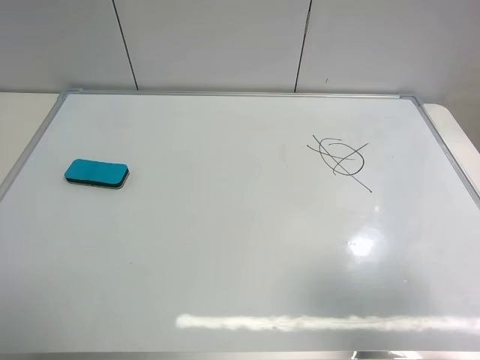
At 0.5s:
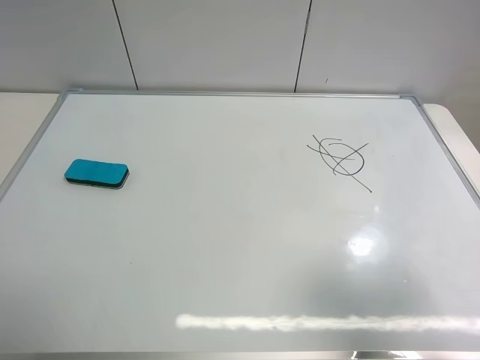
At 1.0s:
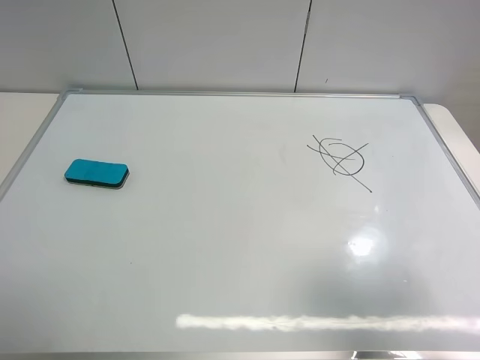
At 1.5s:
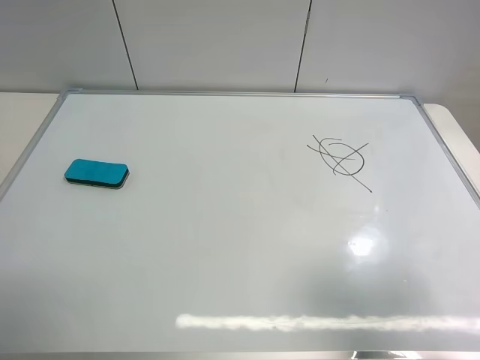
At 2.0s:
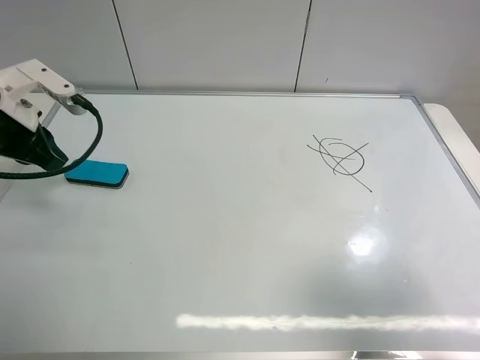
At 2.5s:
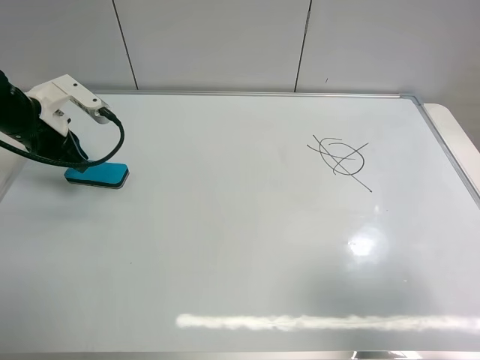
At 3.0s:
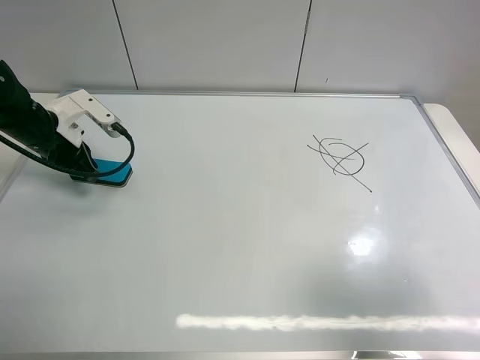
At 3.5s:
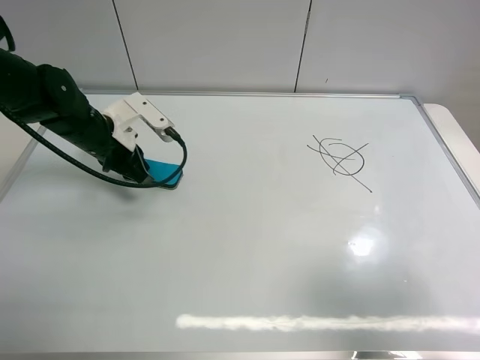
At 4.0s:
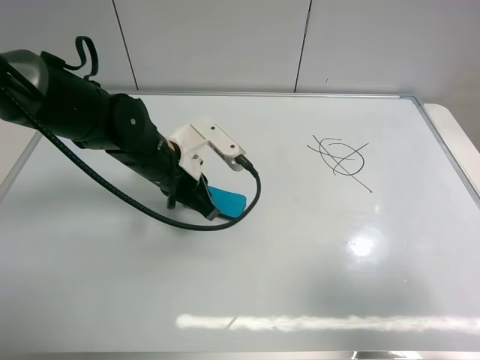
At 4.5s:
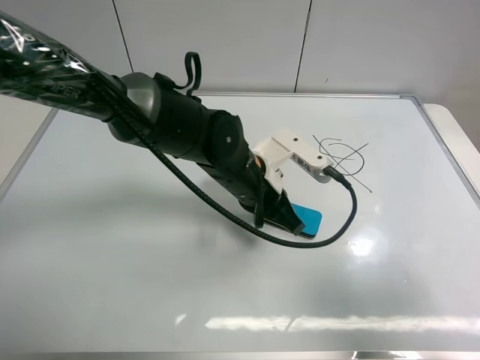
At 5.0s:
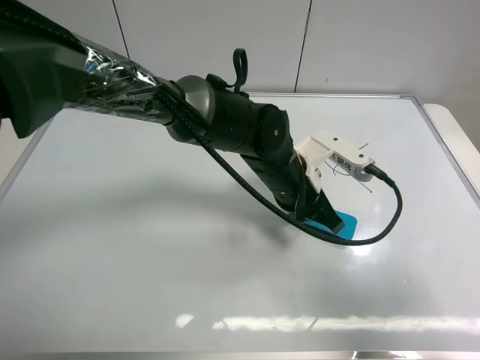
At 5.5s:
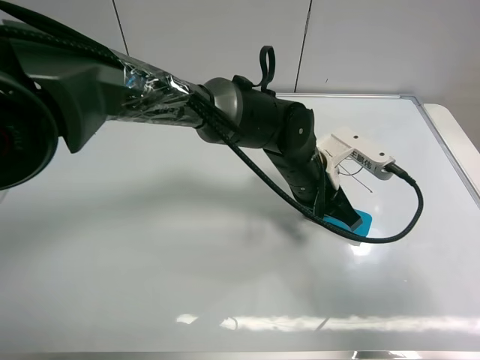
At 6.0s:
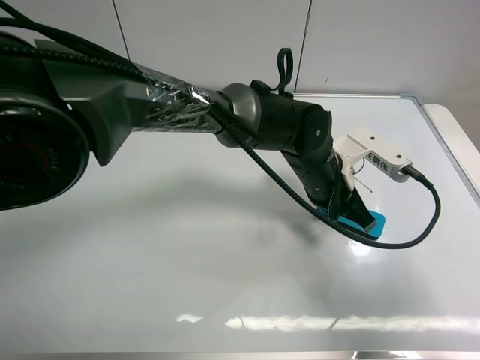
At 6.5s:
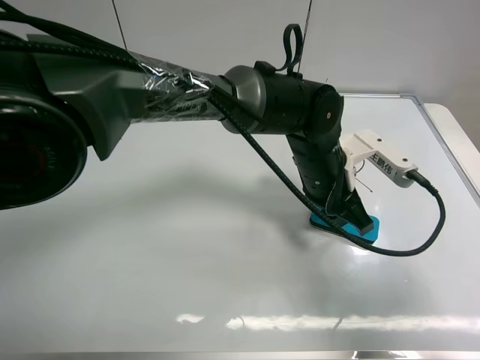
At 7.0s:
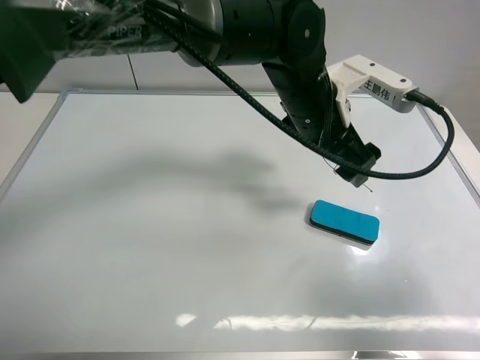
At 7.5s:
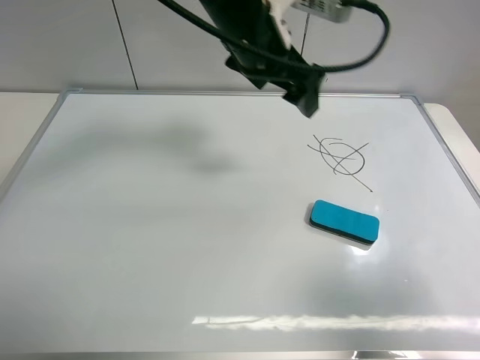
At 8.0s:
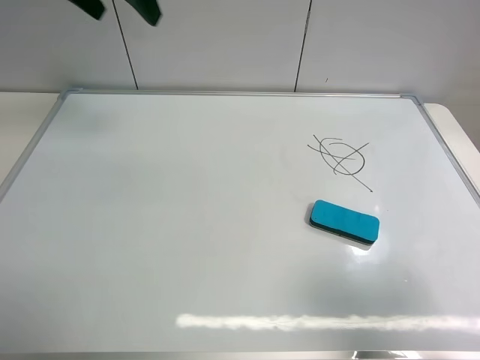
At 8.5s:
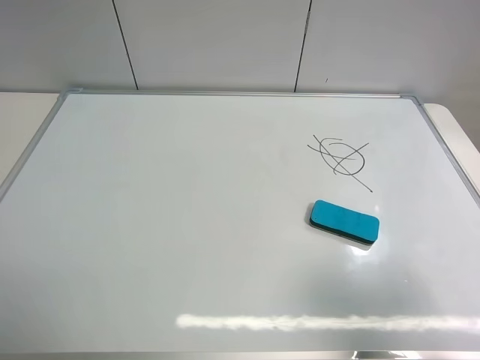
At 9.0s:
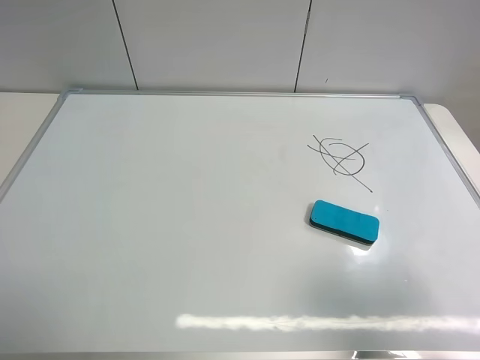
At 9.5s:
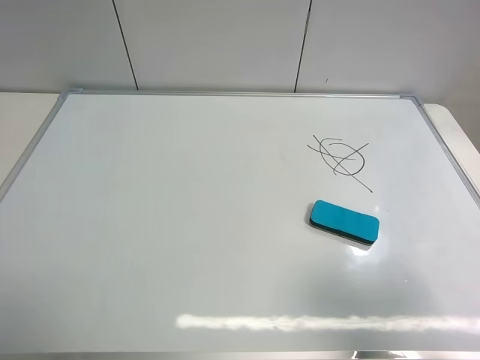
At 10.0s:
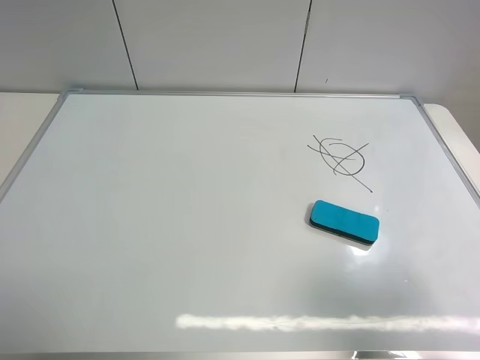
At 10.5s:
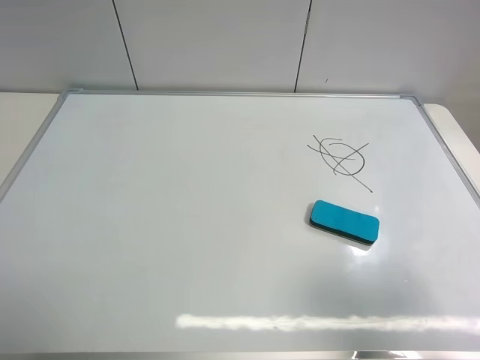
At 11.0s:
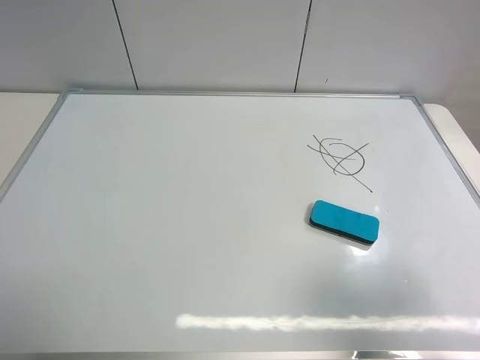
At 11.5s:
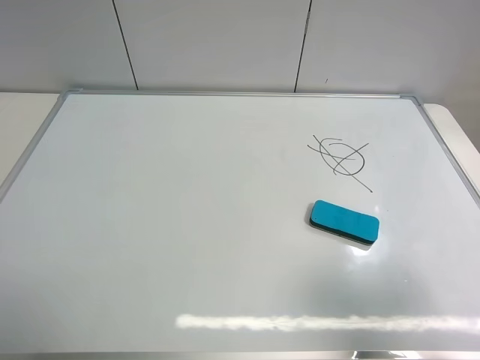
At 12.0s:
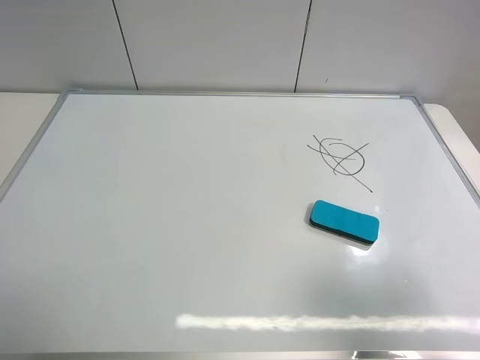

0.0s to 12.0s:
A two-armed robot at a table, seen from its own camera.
Task of the whole recording: use the left gripper to place the eraser in the right, use the right gripper to pick up the eraser, wipe the notes on the whiteboard clean, and then put it down.
Step, 0.0s to 6.5s: Move the board eraser to the right of the whiteboard with left gripper.
0.0s to 2.0s: The left gripper is displaced forward by roughly 30 cm, and closes.
2.0s to 4.0s: The left gripper shifts about 20 cm to the right and downward.
4.0s to 6.0s: The left gripper heads to the right, covering about 20 cm.
6.0s to 8.0s: The left gripper goes approximately 40 cm to the left and upward, and opens.
8.0s to 10.0s: The left gripper moves backward, some 40 cm.
10.0s to 12.0s: The two grippers keep their place.

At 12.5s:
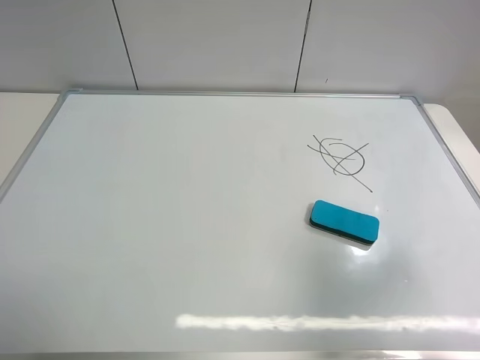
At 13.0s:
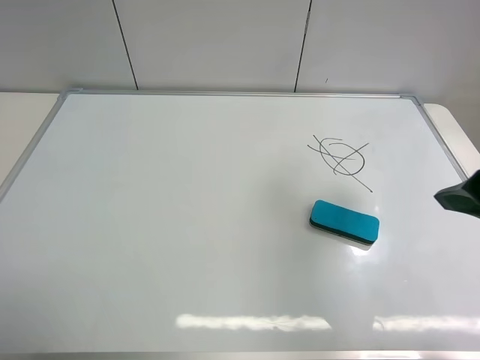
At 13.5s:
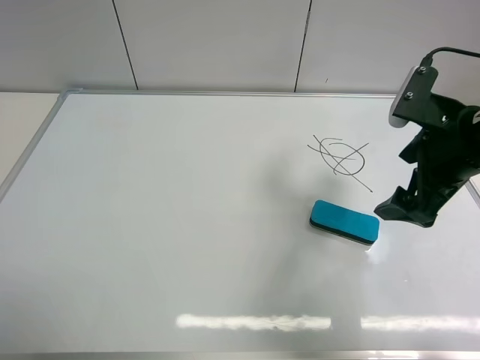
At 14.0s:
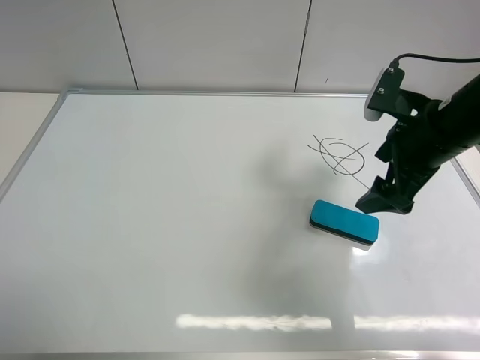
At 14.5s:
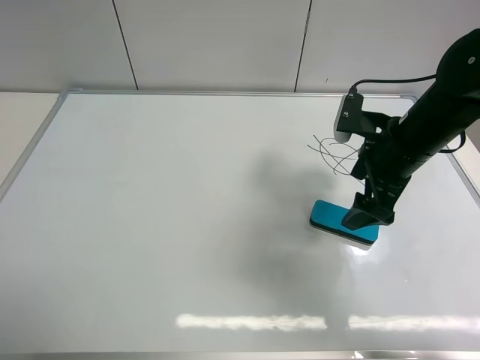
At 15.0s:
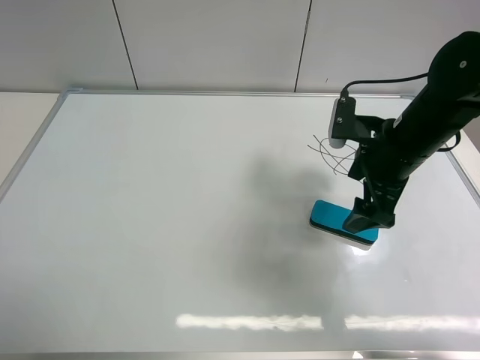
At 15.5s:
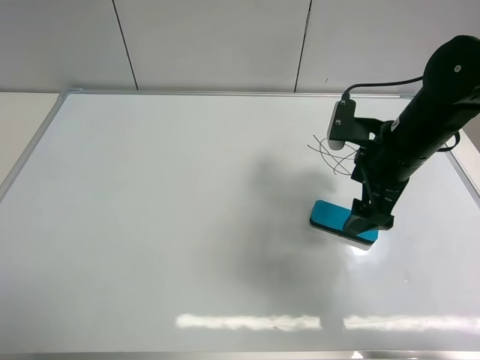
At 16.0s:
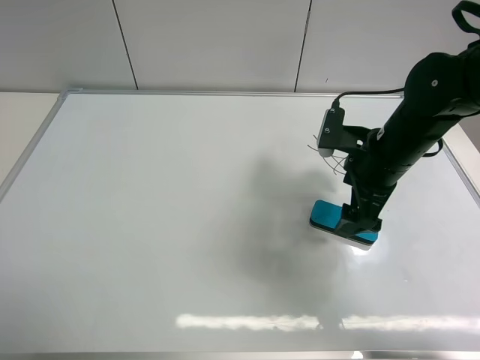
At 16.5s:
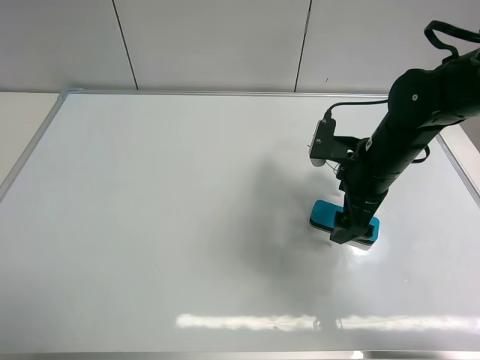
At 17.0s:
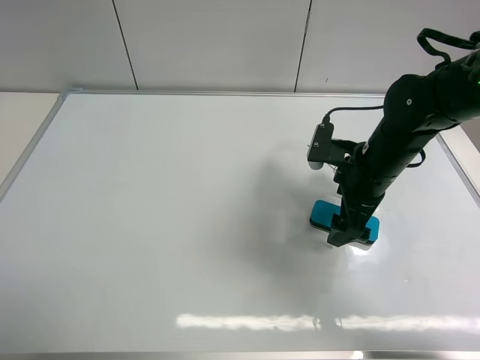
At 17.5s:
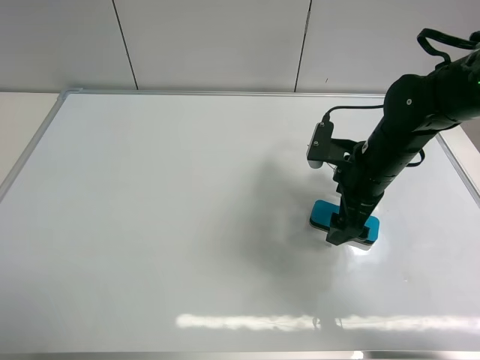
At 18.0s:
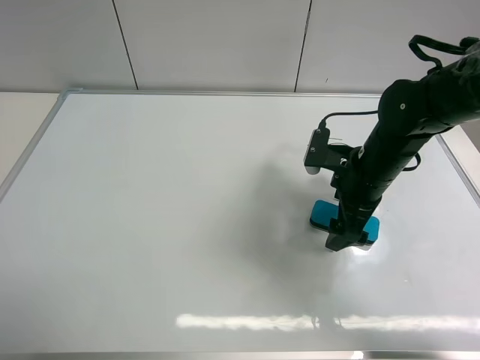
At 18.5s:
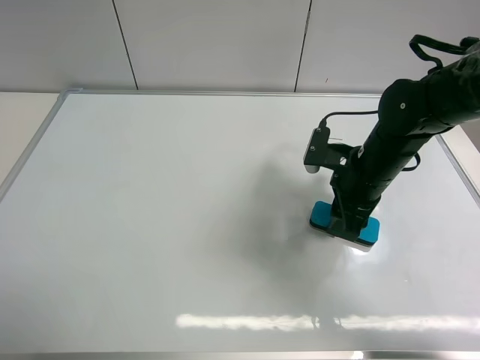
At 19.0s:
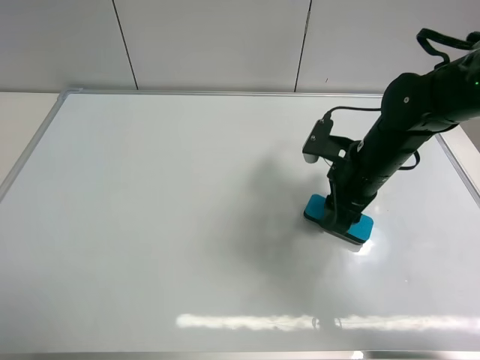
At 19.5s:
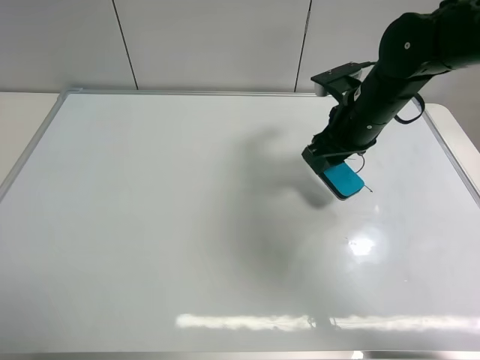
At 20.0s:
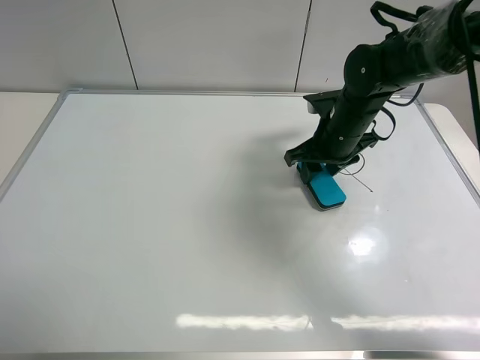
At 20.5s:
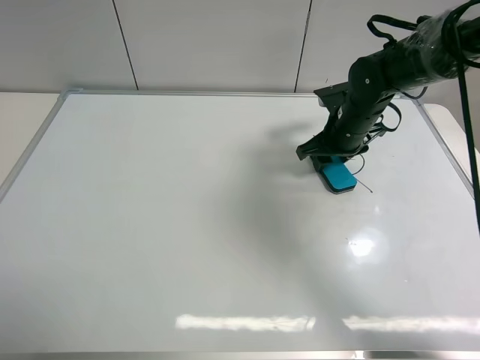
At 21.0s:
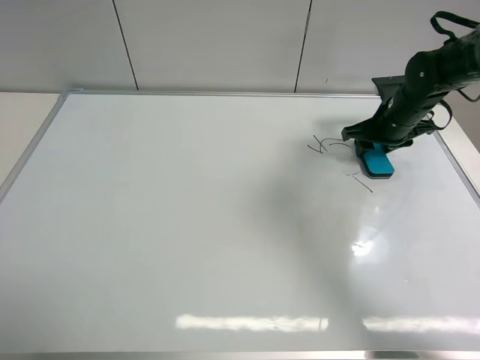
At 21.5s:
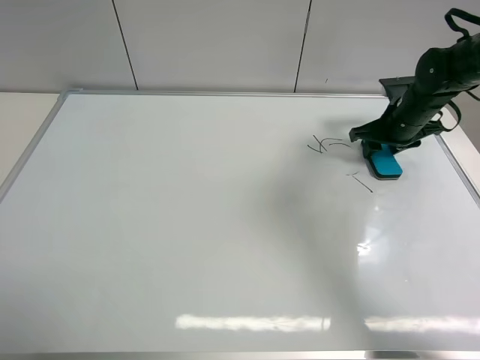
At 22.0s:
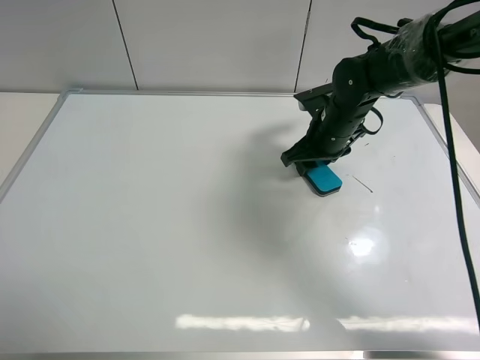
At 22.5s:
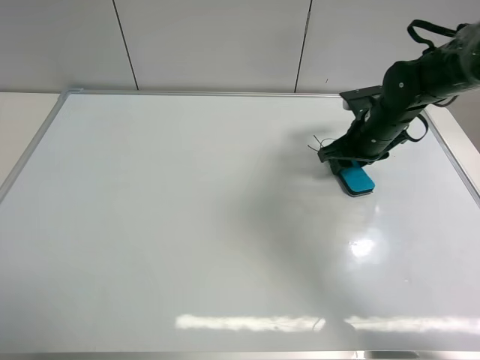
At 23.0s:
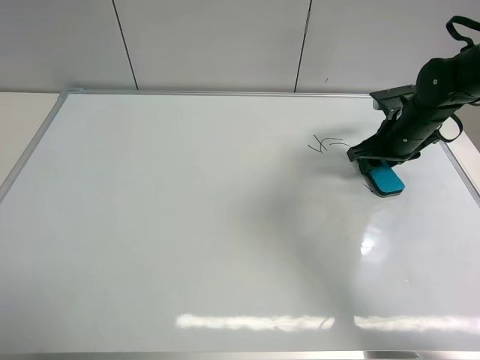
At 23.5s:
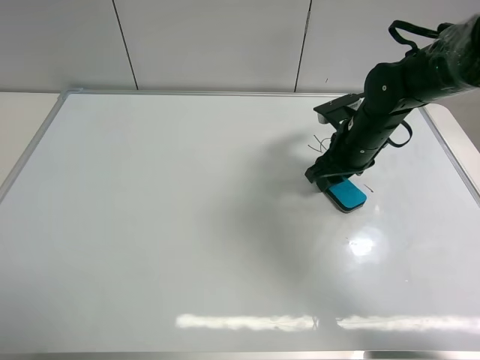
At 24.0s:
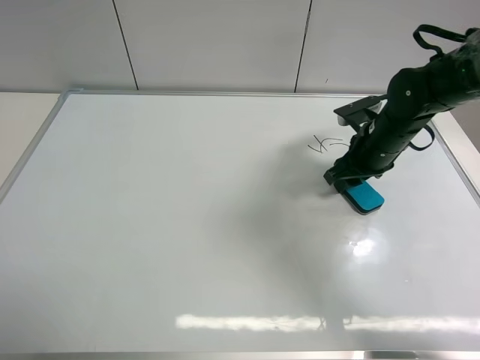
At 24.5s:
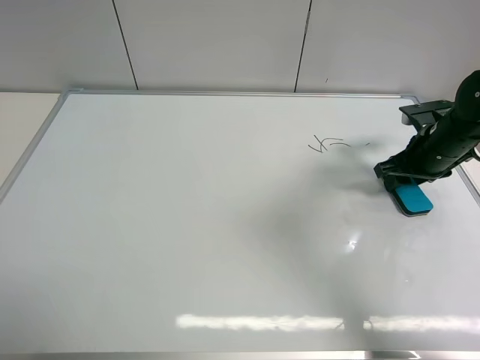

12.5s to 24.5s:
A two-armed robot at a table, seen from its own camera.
Task of the whole recording: use the left gripper to place the eraser in the right, use the right gripper to pick up the eraser, wipe the notes on the whiteboard clean, and then put it down.
Step, 12.5s to 19.0s: Pick up the board eraser with right gripper.
12.5s to 14.5s: The right gripper goes some 25 cm forward and downward.
14.5s to 16.5s: The grippers stay close to where they were, moving slightly.
16.5s to 18.5s: The right gripper closes.
18.5s to 20.5s: The right gripper heads forward, covering roughly 10 cm.
20.5s to 22.5s: The right gripper goes left and right, some 15 cm each way, reversing 2 times.
22.5s to 24.5s: The right gripper heads to the right, covering approximately 10 cm.

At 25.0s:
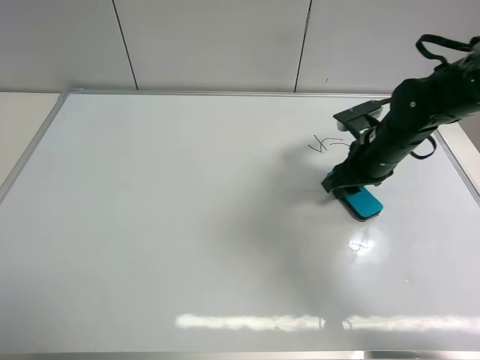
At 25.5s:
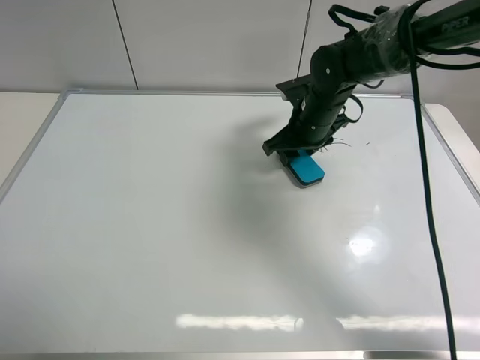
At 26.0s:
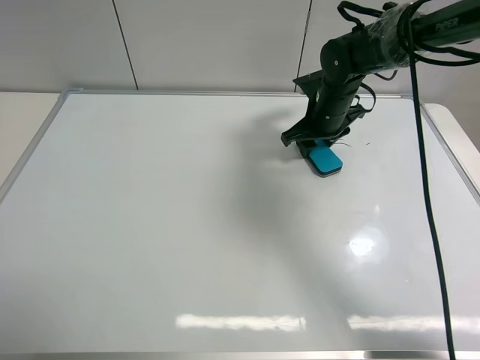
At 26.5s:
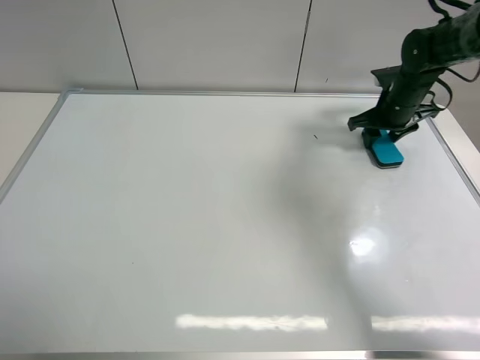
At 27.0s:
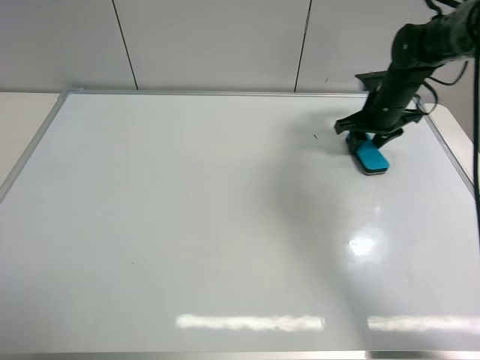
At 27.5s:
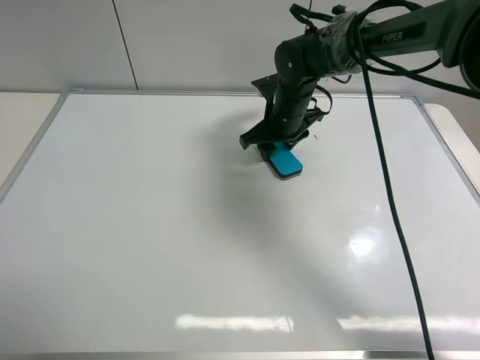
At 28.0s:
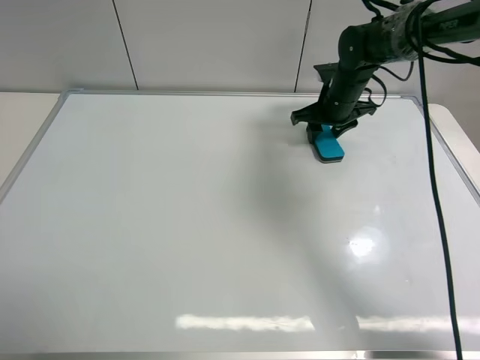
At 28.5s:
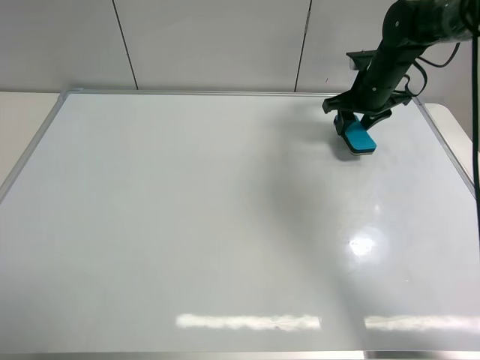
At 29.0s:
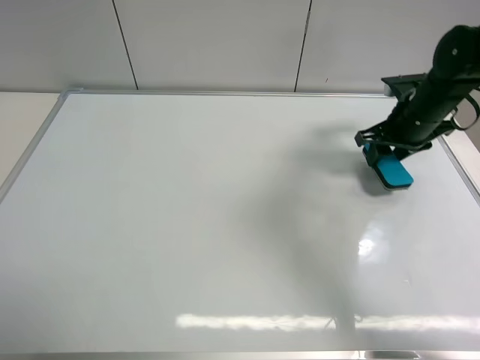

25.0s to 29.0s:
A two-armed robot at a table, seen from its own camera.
Task of the whole recording: use the left gripper to place the eraser in the right, use the right gripper to pick up the eraser, wipe the notes on the whiteboard clean, and then put it down.
Step, 25.0s to 28.0s: Wipe off the writing on the board with right gripper.
25.0s to 27.0s: The right gripper goes left and right, about 20 cm each way, reversing 2 times.
27.0s to 29.0s: The right gripper travels backward by approximately 10 cm, and goes to the left and returns, about 15 cm each way.
